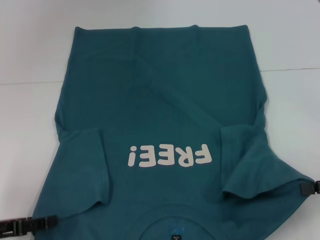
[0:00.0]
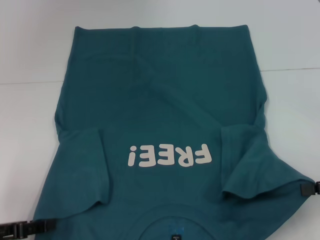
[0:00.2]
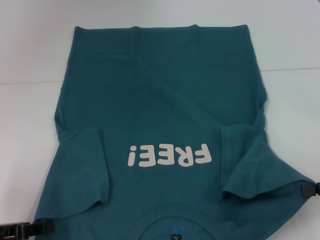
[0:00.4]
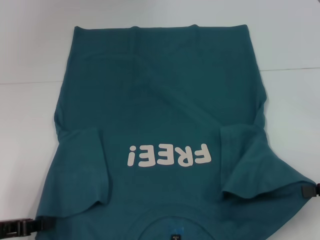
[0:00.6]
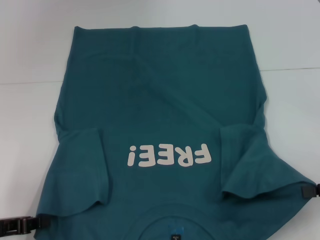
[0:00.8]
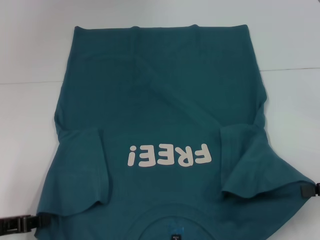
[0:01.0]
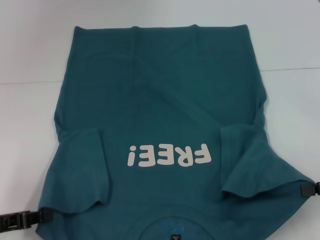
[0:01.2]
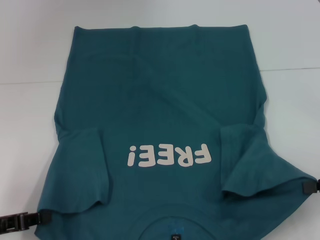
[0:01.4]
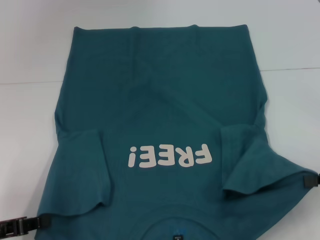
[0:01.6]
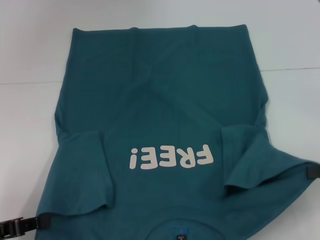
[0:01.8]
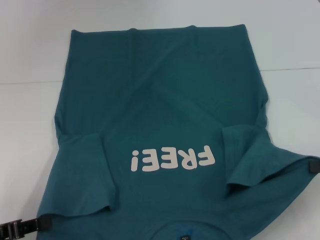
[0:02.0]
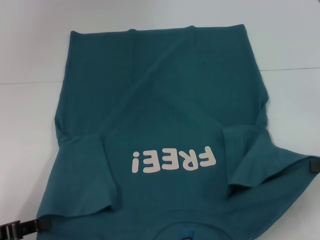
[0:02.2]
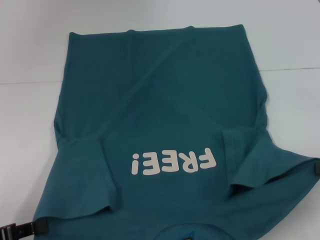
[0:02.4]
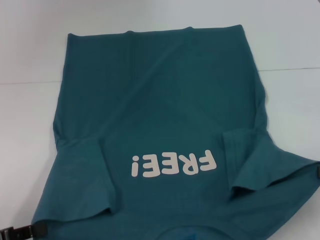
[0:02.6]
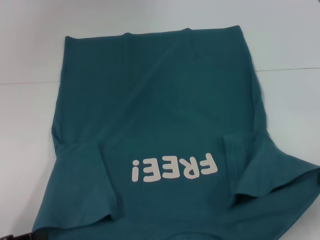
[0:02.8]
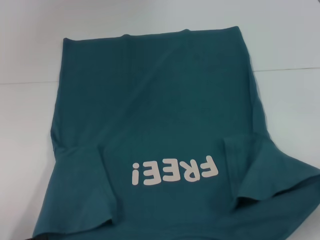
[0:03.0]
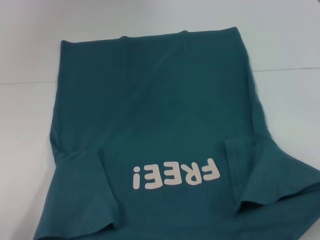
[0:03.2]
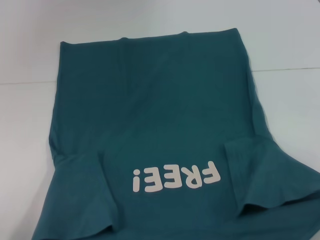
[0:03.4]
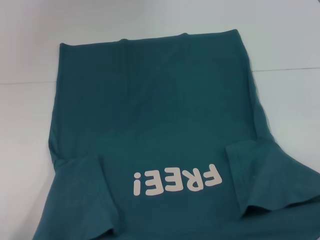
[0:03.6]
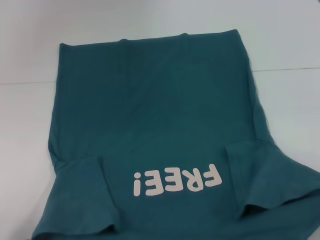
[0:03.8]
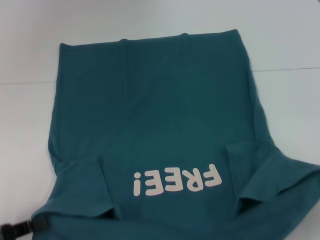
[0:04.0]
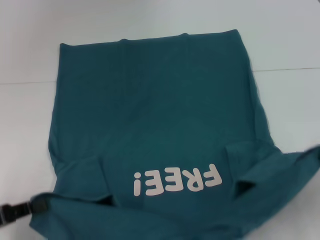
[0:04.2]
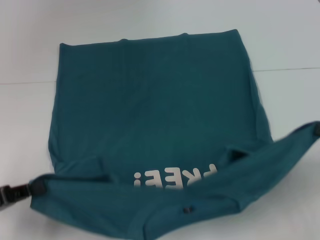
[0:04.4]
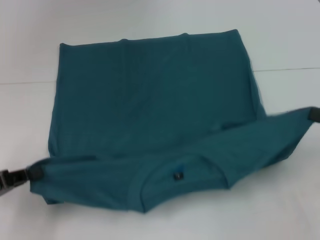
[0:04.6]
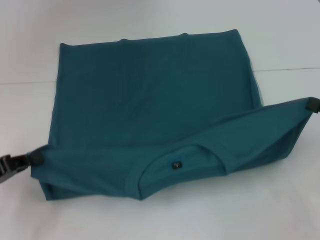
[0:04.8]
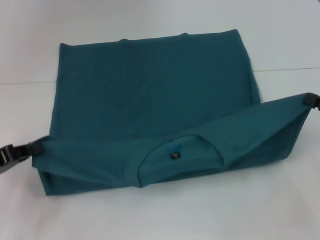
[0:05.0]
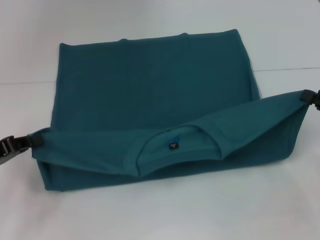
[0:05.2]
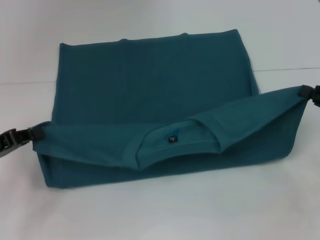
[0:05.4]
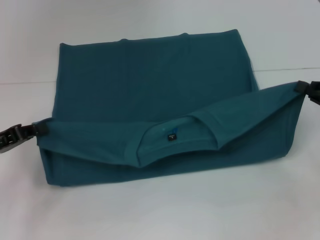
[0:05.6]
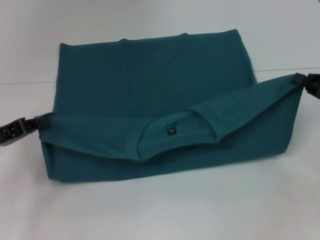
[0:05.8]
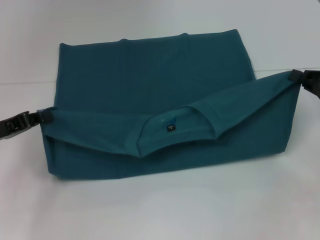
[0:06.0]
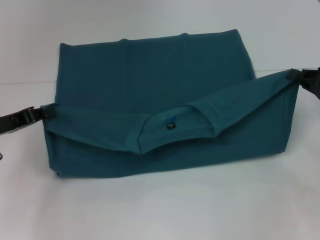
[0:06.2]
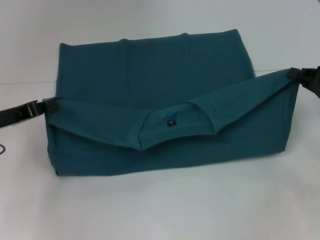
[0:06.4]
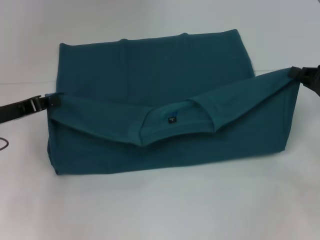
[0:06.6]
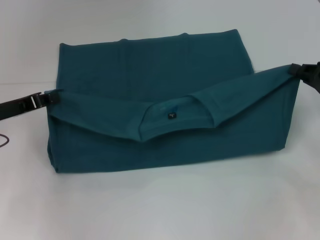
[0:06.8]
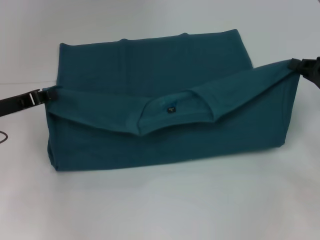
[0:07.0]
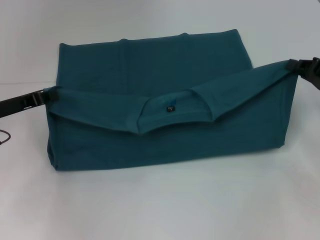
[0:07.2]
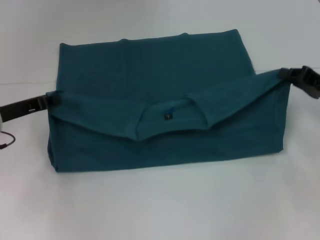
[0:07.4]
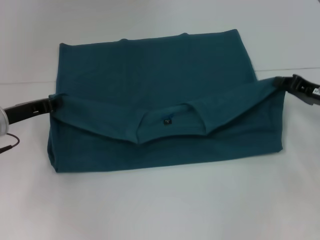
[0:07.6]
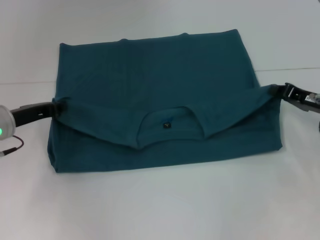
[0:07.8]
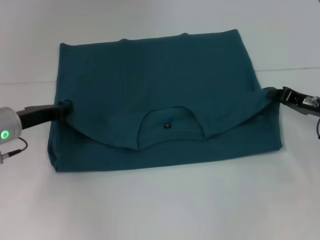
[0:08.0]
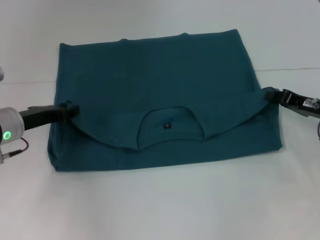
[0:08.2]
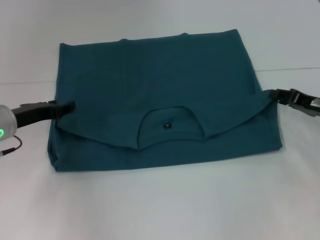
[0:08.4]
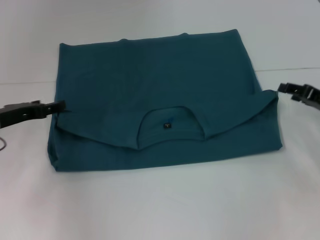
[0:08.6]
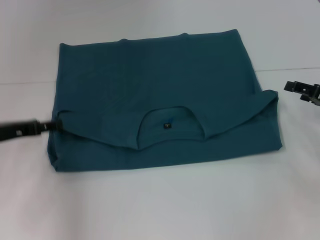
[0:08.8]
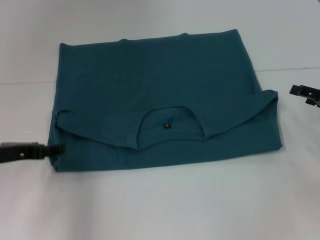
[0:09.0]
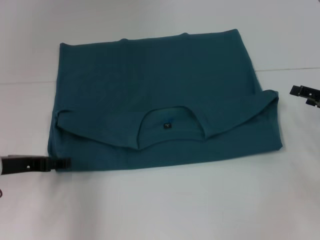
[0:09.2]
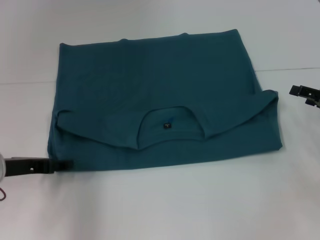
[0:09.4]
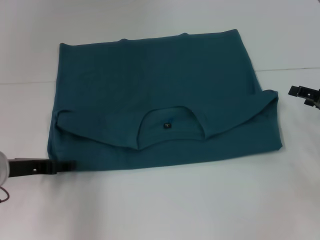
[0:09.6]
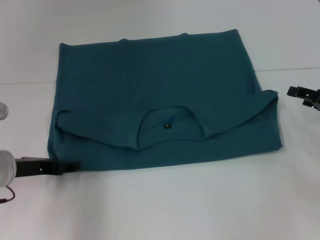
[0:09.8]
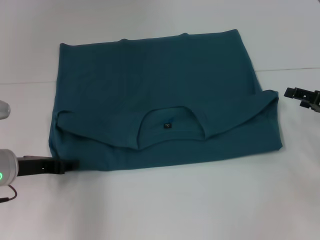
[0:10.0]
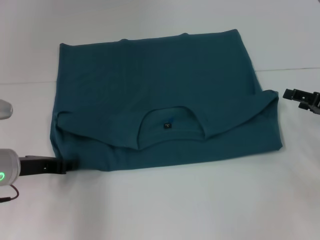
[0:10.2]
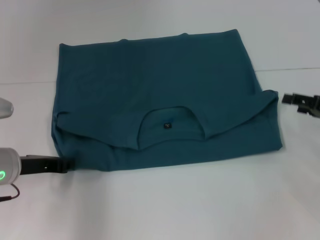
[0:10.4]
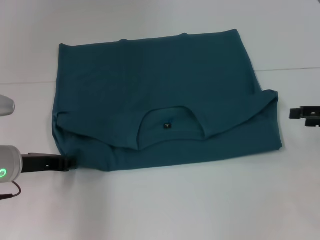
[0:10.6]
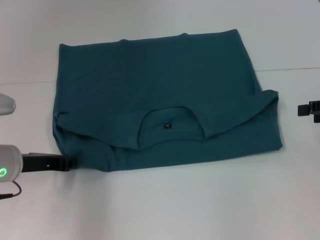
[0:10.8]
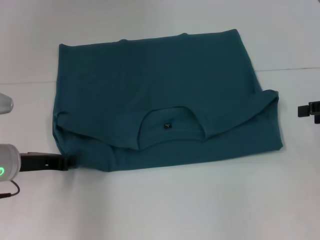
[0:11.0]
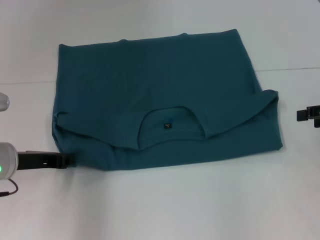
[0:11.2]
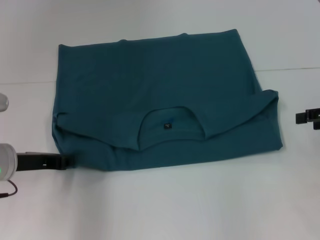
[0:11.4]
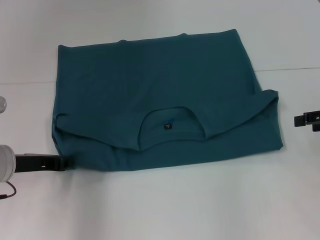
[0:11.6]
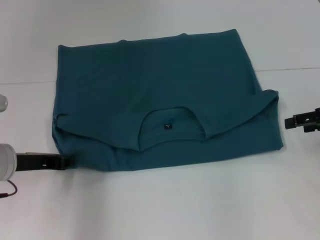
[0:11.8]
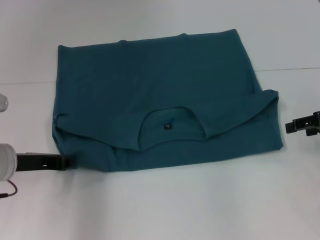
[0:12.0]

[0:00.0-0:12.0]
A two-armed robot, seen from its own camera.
Step, 0:00.0 to 0:03.8: Grab the bottom left corner with your left hand.
Step, 0:04.0 to 0:08.4: Fold the clothes to the left.
Step, 0:04.0 to 0:08.4: Fold the clothes to the right.
0:00.0 to 0:01.6: The left gripper closes up.
0:01.6 to 0:03.0: The left gripper ends up roughly 5 cm from where it was.
0:03.0 to 0:04.4: The left gripper is displaced forward by approximately 5 cm.
0:04.4 to 0:06.0: Both grippers move forward, some 10 cm.
0:06.0 to 0:07.6: The right gripper shifts by approximately 5 cm, while the left gripper shifts roughly 5 cm forward.
0:07.6 to 0:09.0: The left gripper goes roughly 5 cm backward, and opens up. The right gripper shifts by about 5 cm, and opens.
0:09.0 to 0:10.4: The left gripper closes its fingers.
0:10.4 to 0:12.0: The right gripper shifts roughly 5 cm upward.

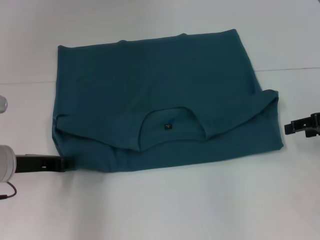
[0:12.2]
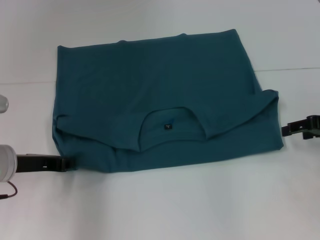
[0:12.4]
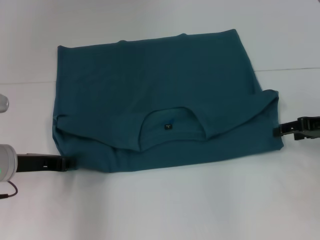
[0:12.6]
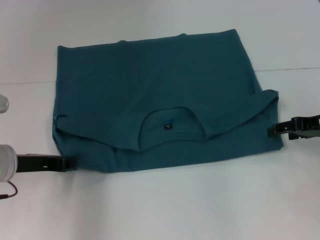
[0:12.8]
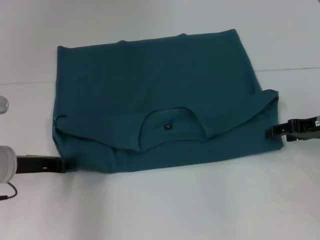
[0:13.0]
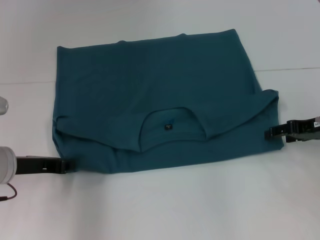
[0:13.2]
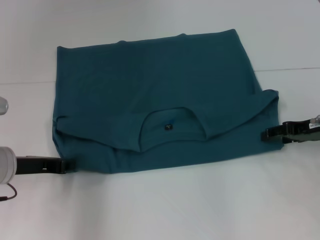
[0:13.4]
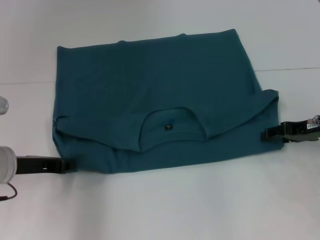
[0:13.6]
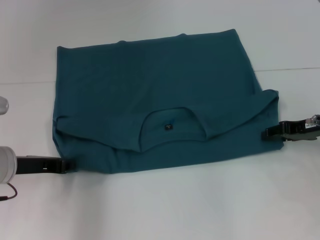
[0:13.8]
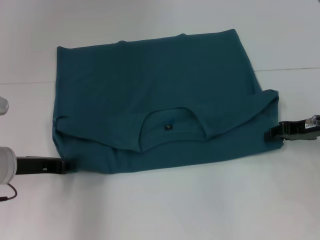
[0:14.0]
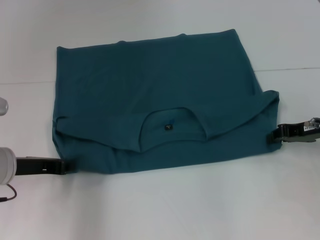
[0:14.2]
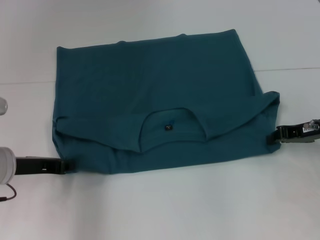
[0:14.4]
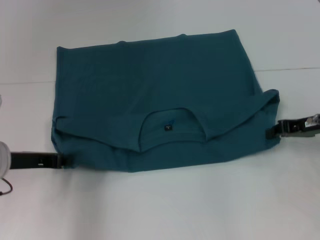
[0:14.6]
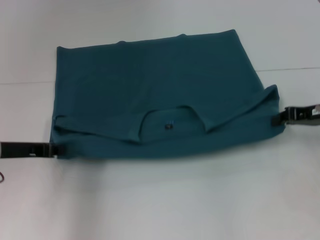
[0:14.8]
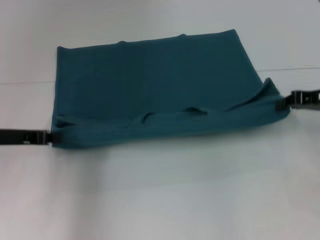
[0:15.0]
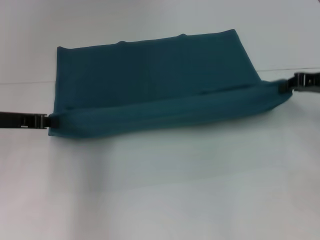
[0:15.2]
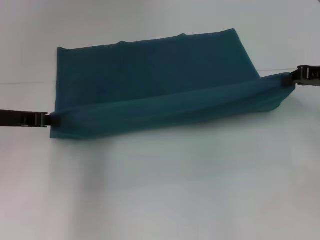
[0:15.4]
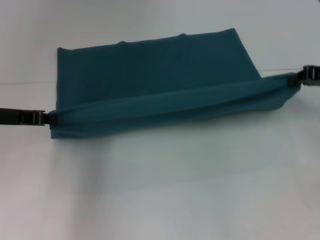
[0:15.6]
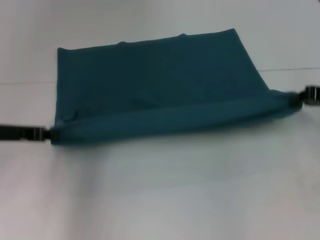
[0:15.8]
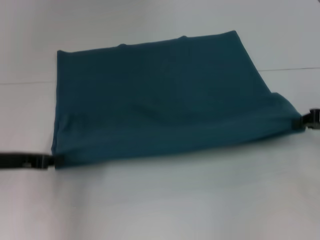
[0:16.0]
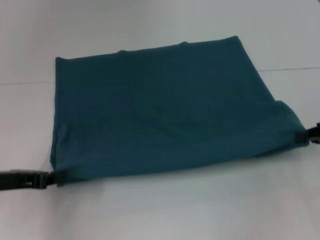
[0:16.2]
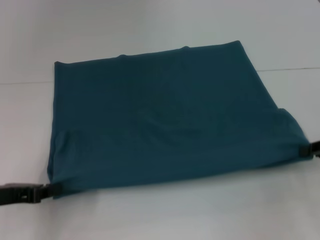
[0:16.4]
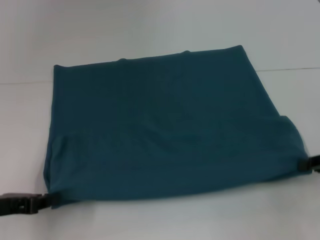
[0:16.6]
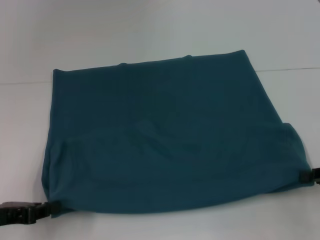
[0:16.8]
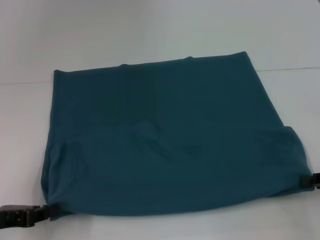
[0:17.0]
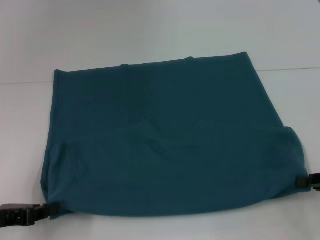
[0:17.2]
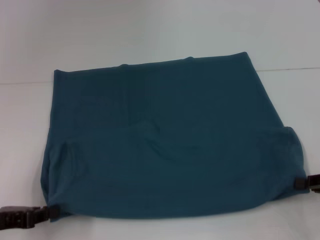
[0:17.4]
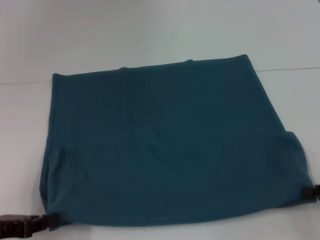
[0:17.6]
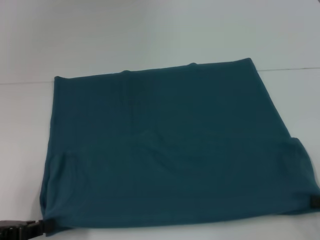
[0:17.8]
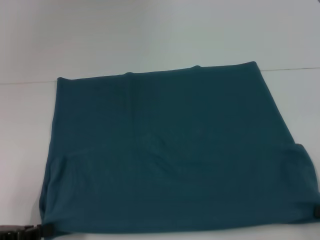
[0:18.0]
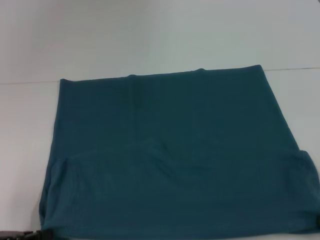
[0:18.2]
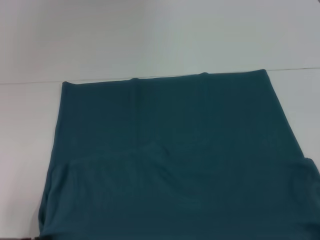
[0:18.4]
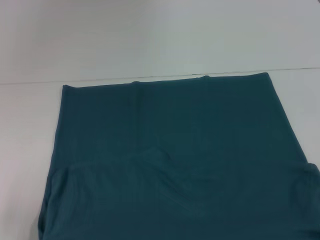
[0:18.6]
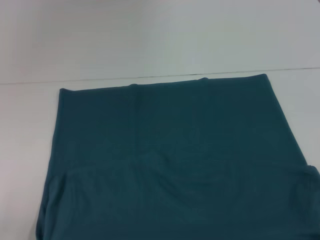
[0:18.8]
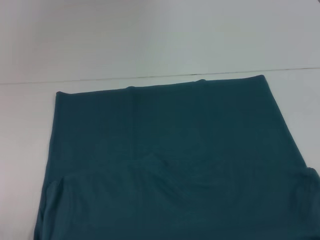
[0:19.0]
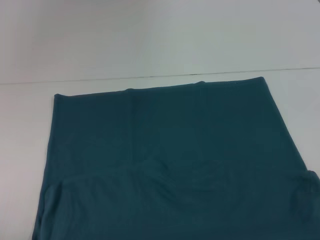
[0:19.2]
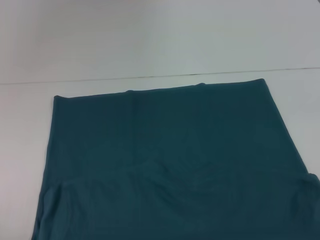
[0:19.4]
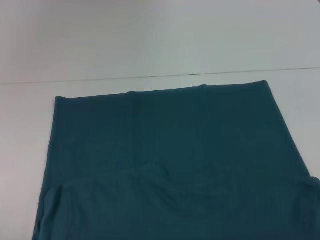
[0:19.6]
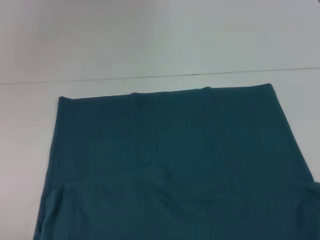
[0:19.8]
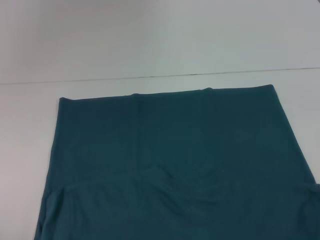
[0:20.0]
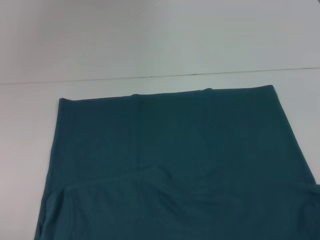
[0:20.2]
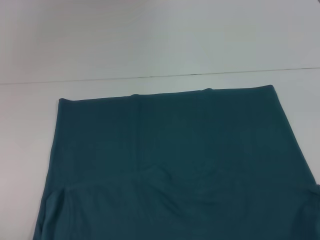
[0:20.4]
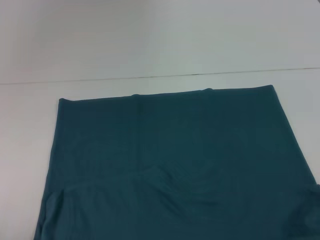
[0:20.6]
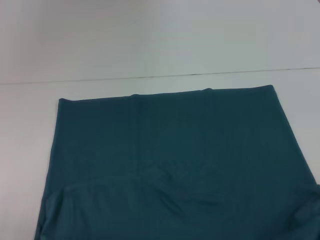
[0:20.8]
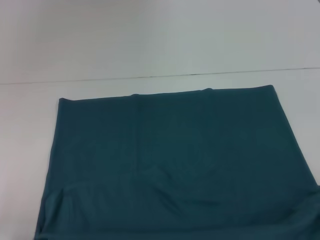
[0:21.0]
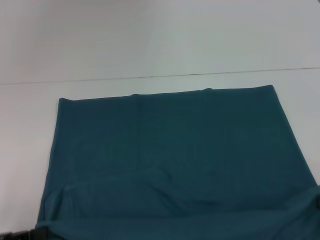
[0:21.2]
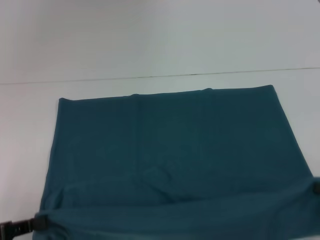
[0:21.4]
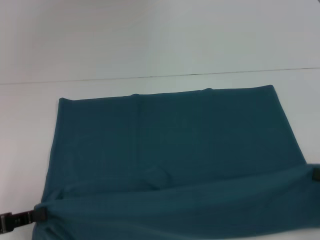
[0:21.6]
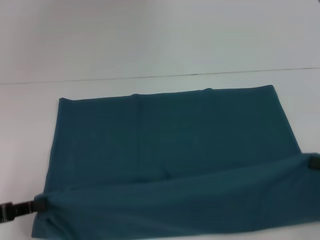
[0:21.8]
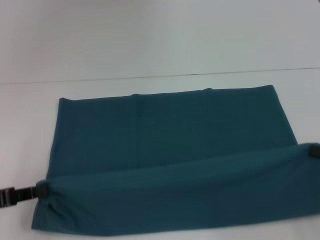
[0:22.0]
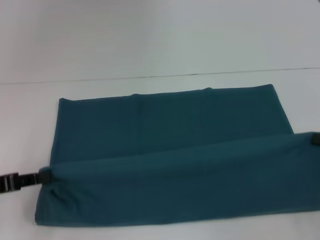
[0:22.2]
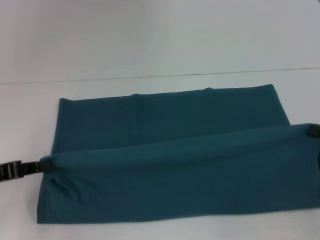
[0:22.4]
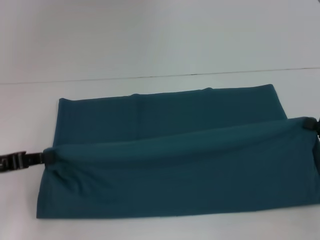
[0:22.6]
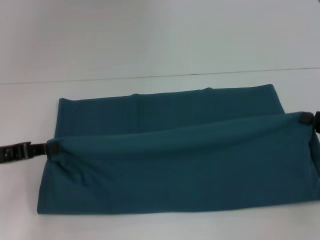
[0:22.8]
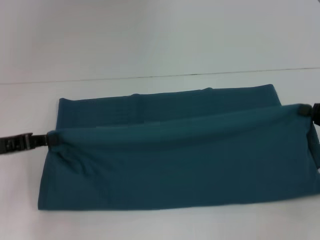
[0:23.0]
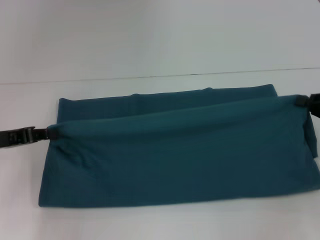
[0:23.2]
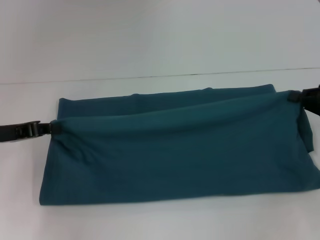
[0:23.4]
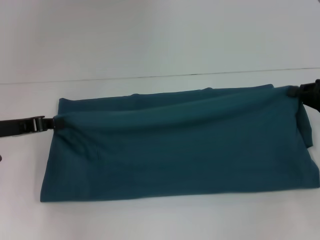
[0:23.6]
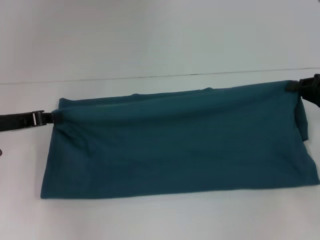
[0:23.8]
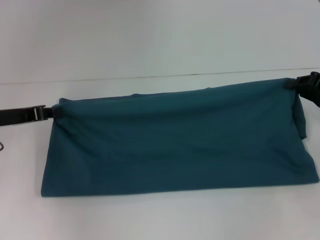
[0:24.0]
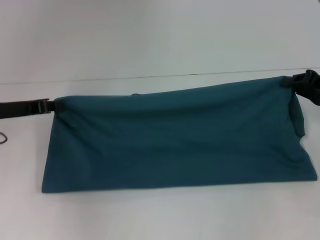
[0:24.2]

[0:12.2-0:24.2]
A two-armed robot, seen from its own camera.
Step, 0:12.2 to 0:18.0: Pull the clothes with your left hand.
Step, 0:12.2 to 0:18.0: Pull the clothes with your right hand.
0:12.2 to 0:13.8: The right gripper shifts by some 5 cm.
0:13.8 to 0:15.2: Both grippers travel together upward, approximately 5 cm. The right gripper closes up.
0:15.2 to 0:16.6: Both grippers travel together backward and downward, roughly 15 cm.
0:16.6 to 0:18.2: The right gripper is displaced backward by some 10 cm, while the left gripper ends up approximately 5 cm from where it was.
0:18.2 to 0:19.8: Both grippers travel together backward, some 5 cm.
0:19.8 to 0:21.2: The right gripper travels forward by about 5 cm.
0:21.2 to 0:22.6: The grippers both shift forward by approximately 10 cm.
0:22.6 to 0:24.2: The two grippers go approximately 10 cm forward.
